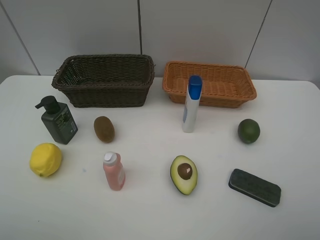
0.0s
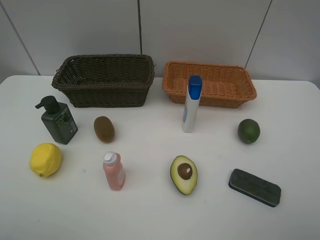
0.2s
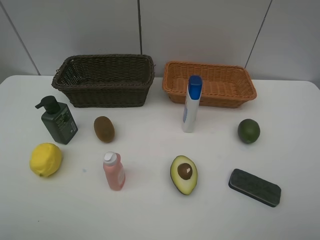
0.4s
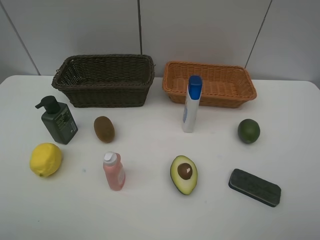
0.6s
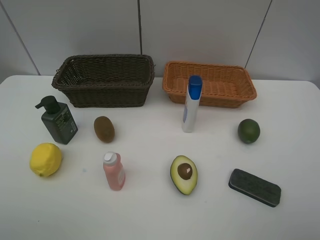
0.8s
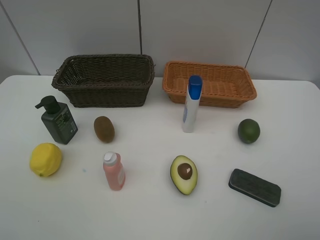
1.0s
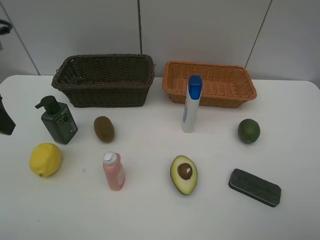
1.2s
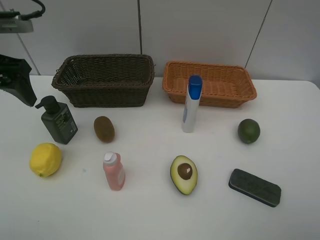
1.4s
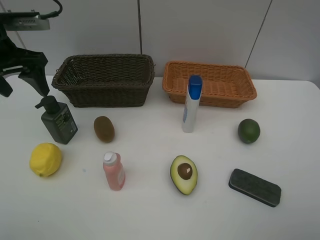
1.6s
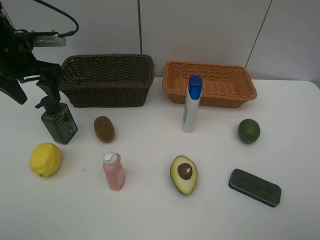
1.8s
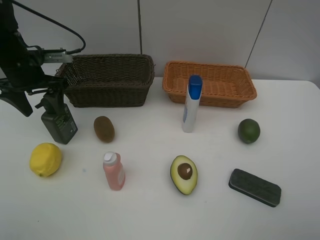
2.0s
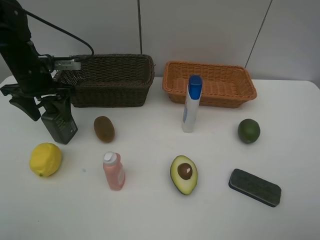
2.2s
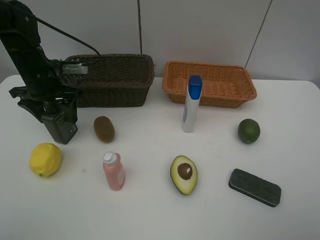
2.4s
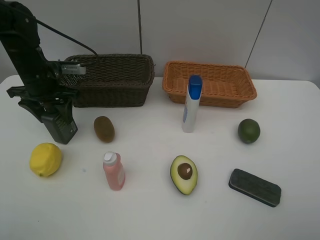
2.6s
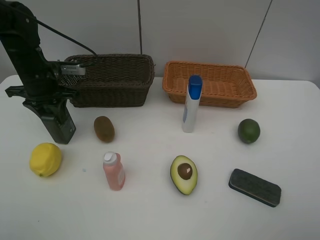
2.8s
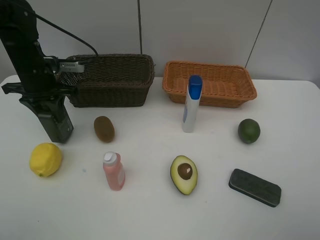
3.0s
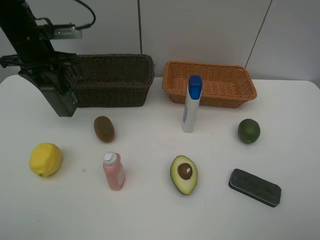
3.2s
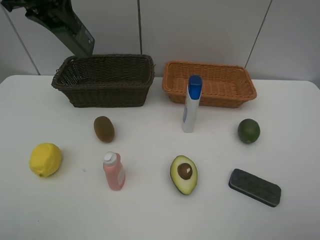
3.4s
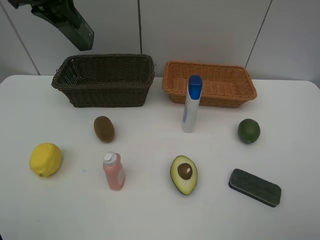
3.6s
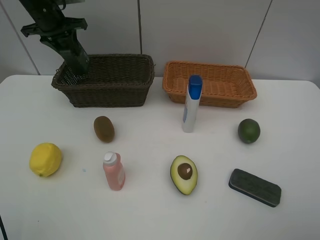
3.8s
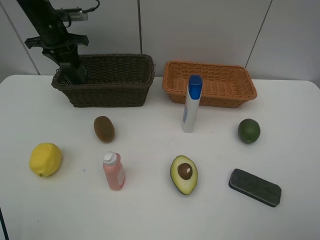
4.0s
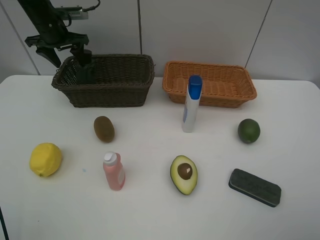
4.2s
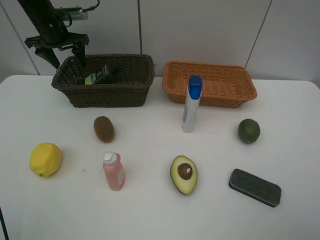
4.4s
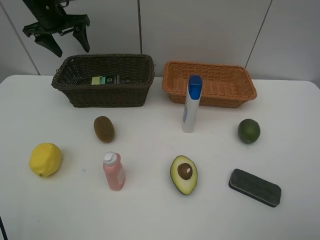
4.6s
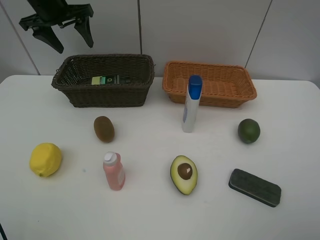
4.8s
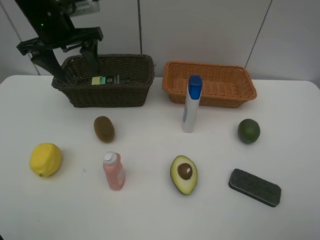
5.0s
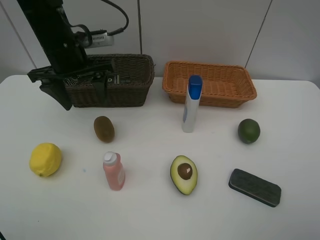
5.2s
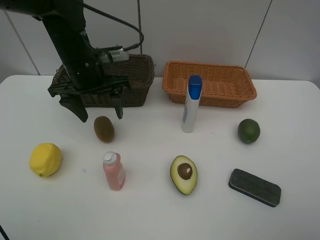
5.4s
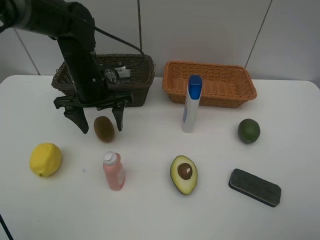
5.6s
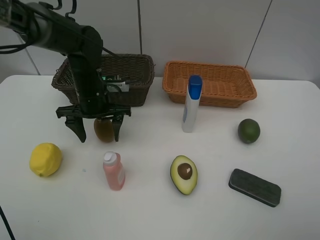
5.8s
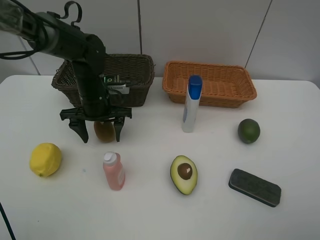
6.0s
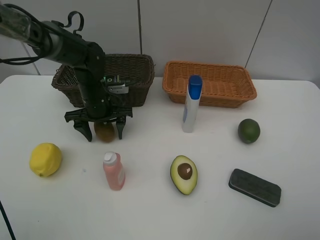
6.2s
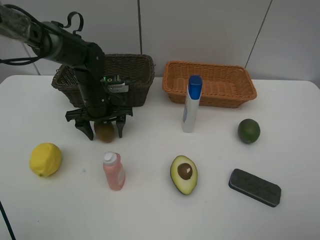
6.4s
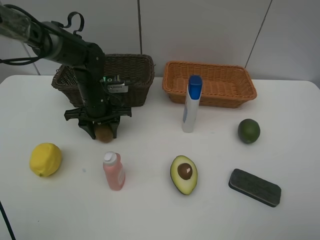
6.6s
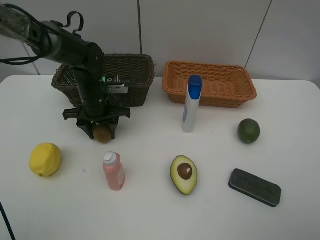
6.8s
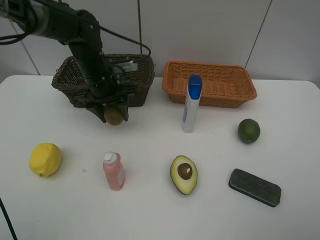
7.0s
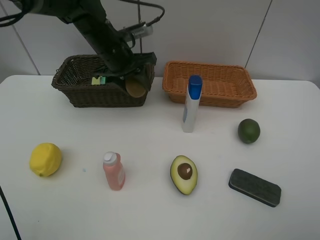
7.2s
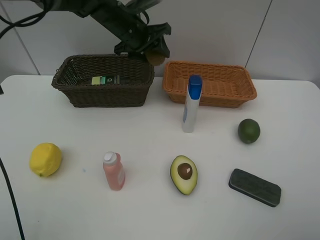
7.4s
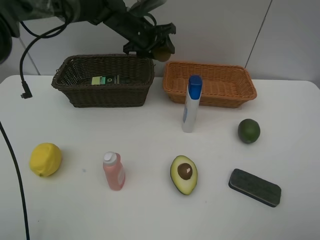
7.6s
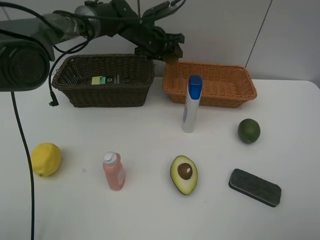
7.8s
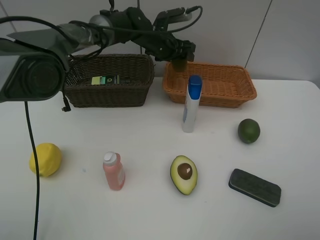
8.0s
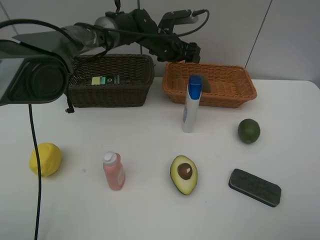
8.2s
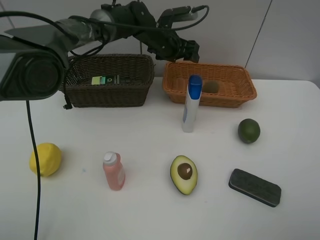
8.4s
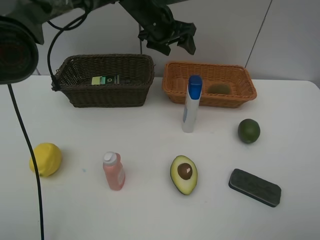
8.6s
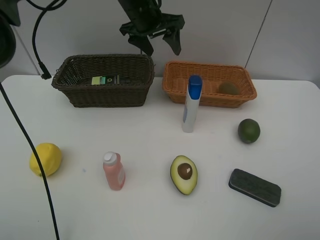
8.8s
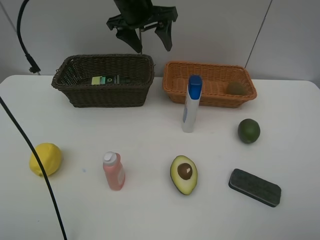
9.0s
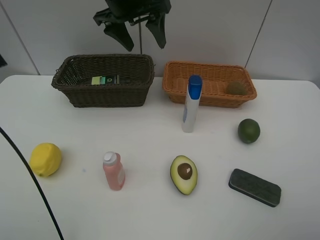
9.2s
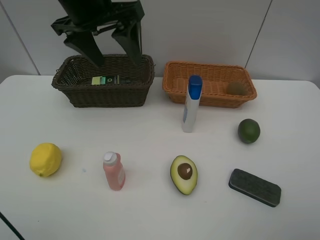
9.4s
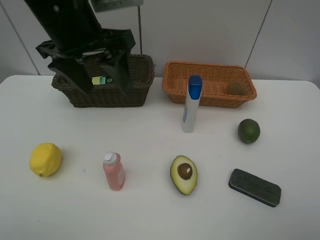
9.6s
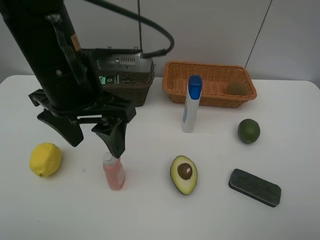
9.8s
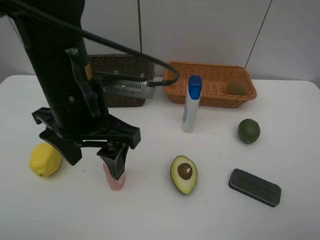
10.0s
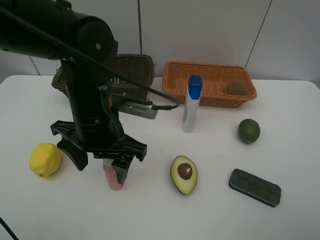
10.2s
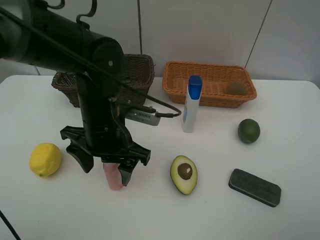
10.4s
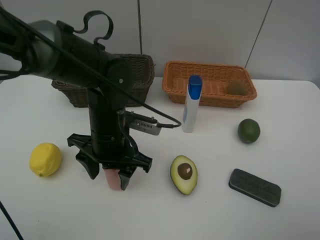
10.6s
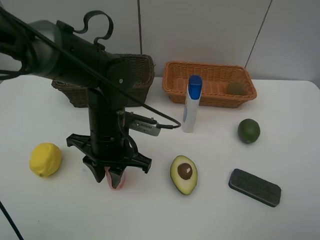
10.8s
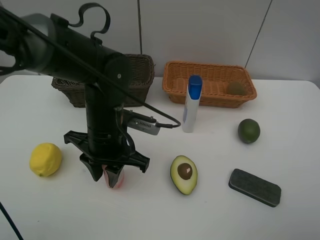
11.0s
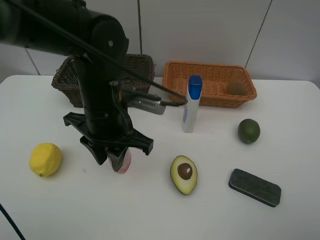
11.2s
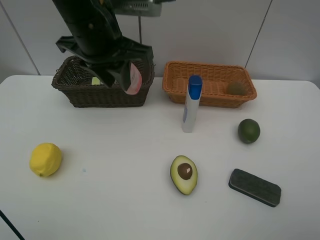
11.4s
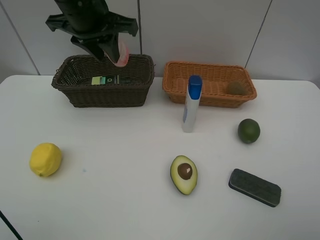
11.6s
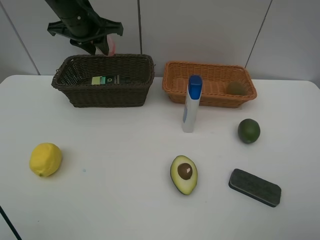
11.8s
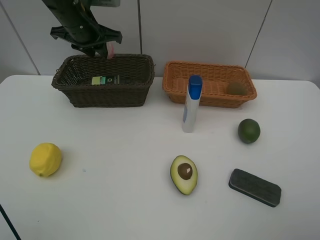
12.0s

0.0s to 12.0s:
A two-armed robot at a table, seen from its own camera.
Task of the whole recording: Place multiple objects separately in different baskets.
Step, 0.0s to 3.0s: Pick up the hard facial cleanser with left gripper.
Step, 3.2s to 4.4s: Place the hard facial cleanser in the dark basket with left gripper.
Step, 4.6s to 6.8s: Pick up kiwi with left gripper.
Step, 7.0s to 8.2s: Place the kiwi in the light basket with left gripper.
Step, 8.4s to 11.0s: Pick up the laundry detergent with left gripper.
0.0s to 1.6s: The left gripper shifts some 35 cm forward.
1.6s to 3.0s: The left gripper goes approximately 10 cm downward, and closes up.
3.0s to 4.4s: The left gripper moves forward, roughly 15 cm, goes upward and returns, roughly 15 cm each way, and opens.
4.4s to 6.0s: The left gripper goes roughly 25 cm backward, to the right and downward.
6.0s to 7.6s: The left gripper goes roughly 20 cm forward, upward and to the right, and closes its fingers.
7.6s to 9.0s: The left gripper heads upward and backward, covering some 10 cm, and opens its fingers.
9.0s to 10.4s: The left gripper travels backward and downward by roughly 25 cm.
10.4s to 12.0s: The left gripper moves forward, to the left and upward, approximately 25 cm, and closes.

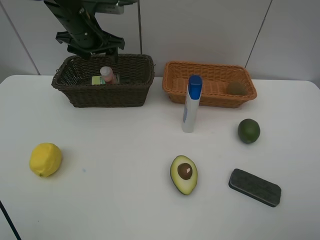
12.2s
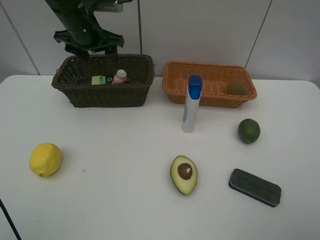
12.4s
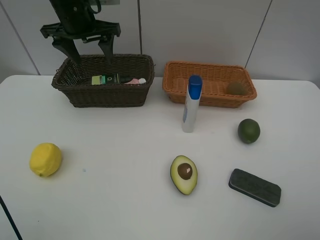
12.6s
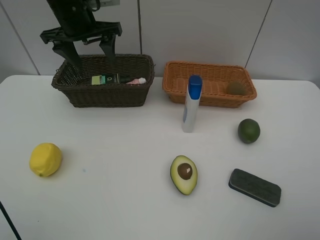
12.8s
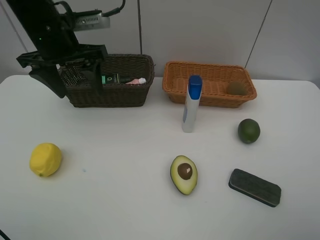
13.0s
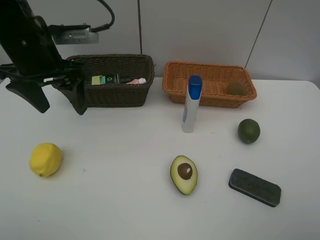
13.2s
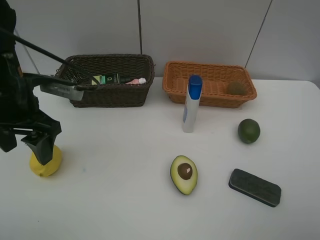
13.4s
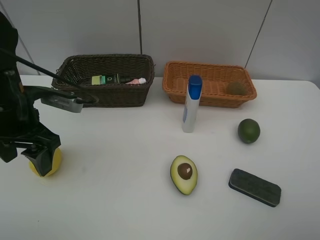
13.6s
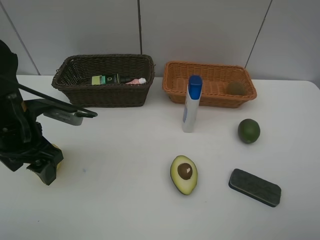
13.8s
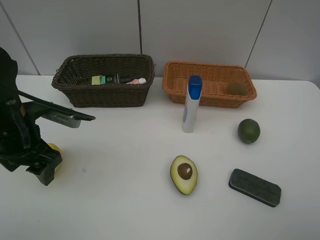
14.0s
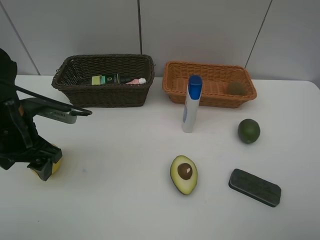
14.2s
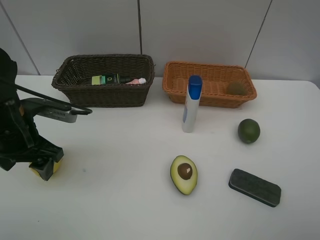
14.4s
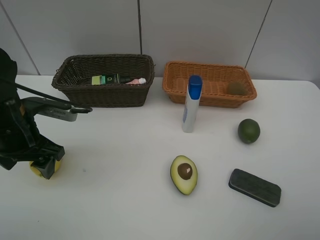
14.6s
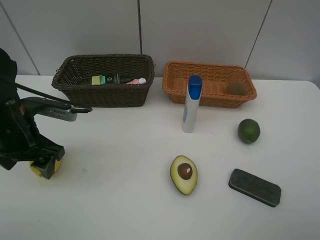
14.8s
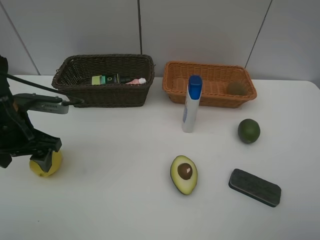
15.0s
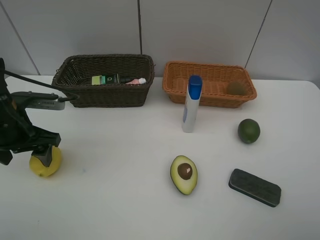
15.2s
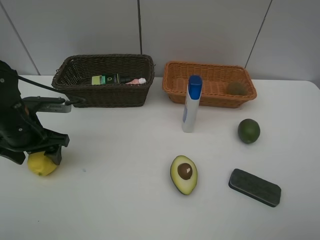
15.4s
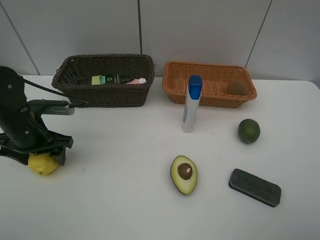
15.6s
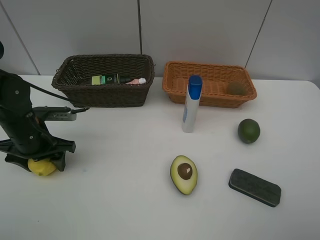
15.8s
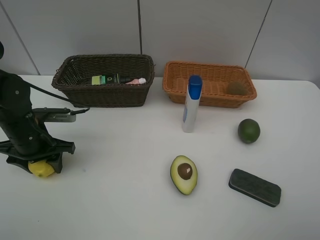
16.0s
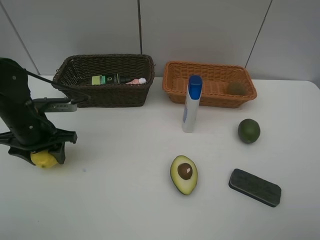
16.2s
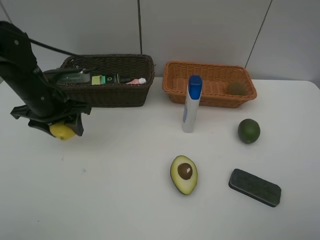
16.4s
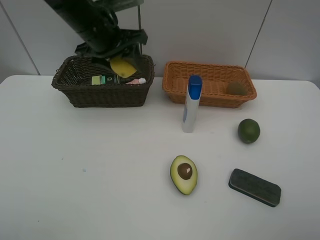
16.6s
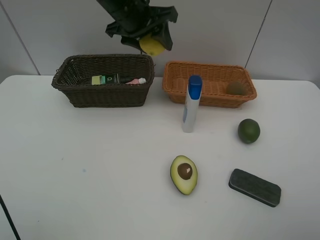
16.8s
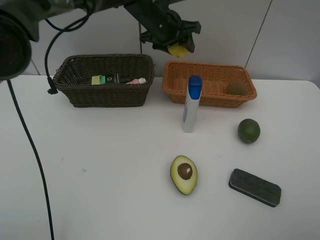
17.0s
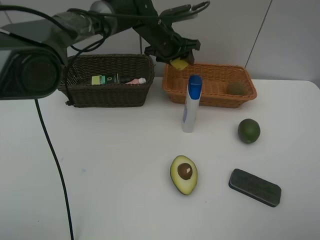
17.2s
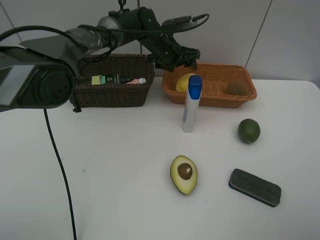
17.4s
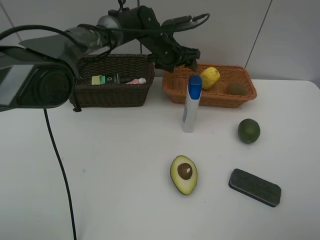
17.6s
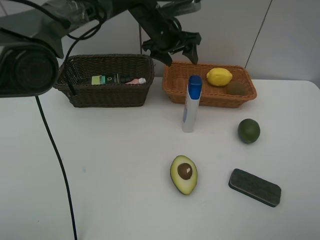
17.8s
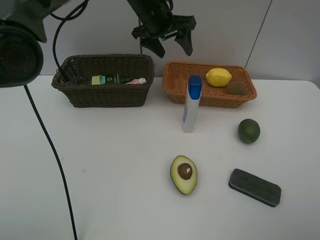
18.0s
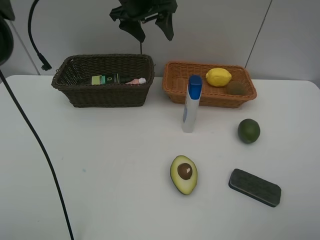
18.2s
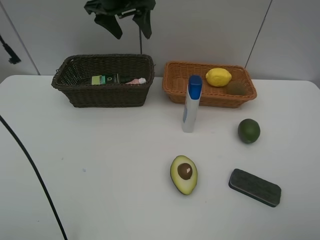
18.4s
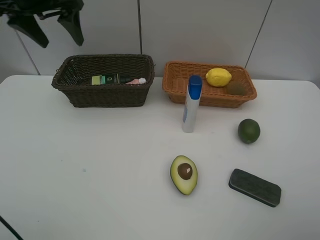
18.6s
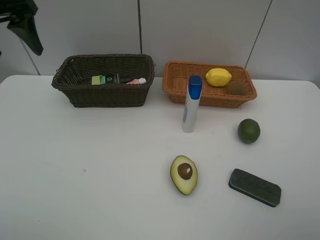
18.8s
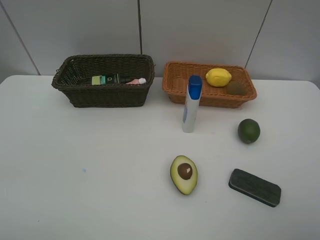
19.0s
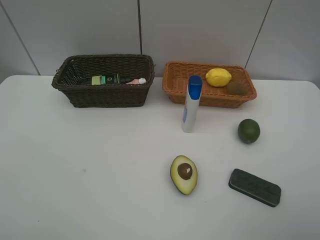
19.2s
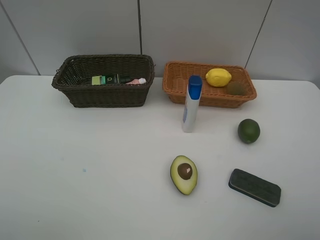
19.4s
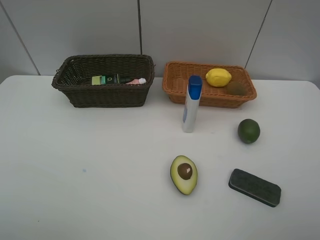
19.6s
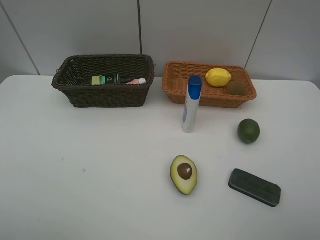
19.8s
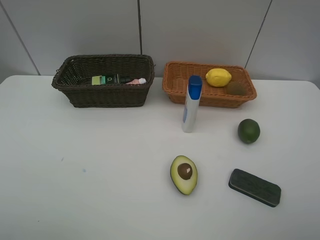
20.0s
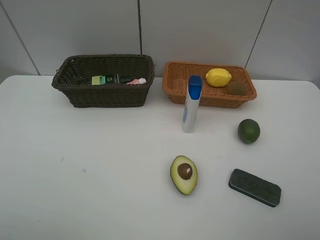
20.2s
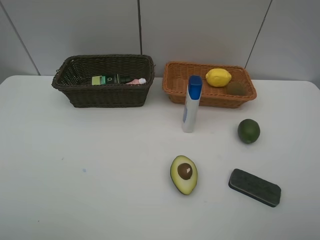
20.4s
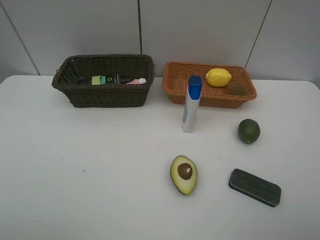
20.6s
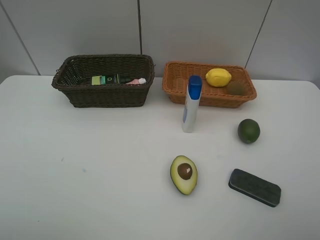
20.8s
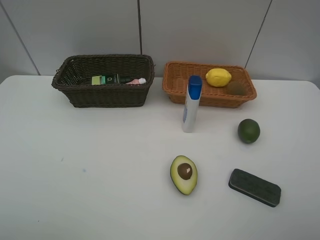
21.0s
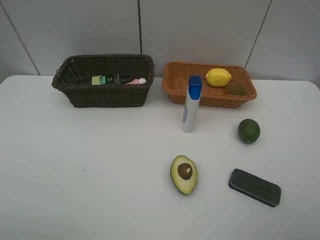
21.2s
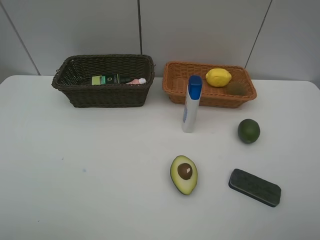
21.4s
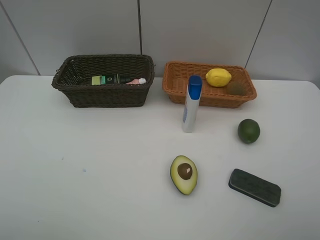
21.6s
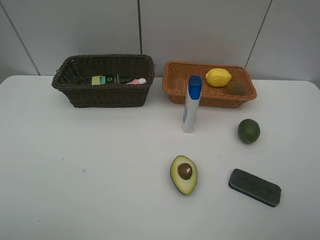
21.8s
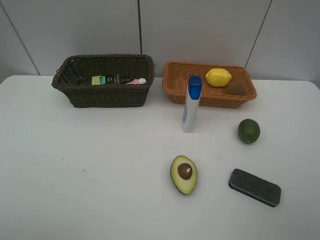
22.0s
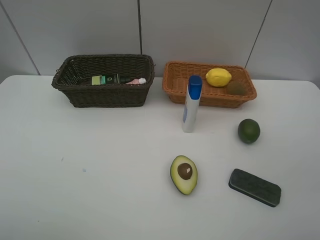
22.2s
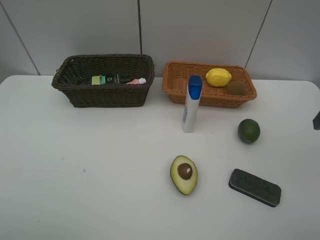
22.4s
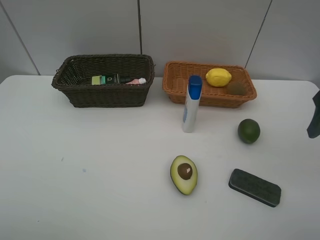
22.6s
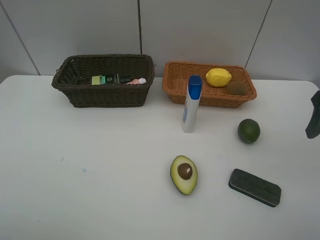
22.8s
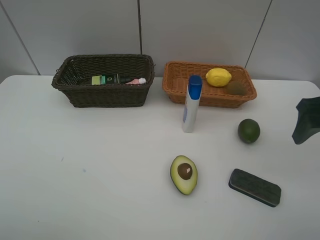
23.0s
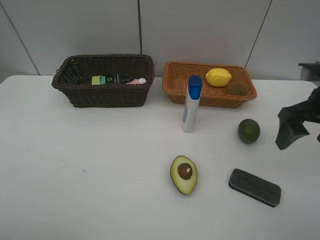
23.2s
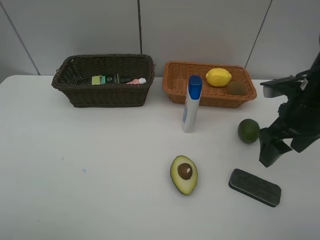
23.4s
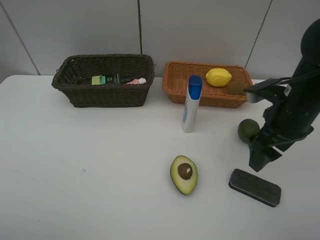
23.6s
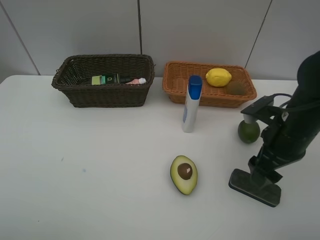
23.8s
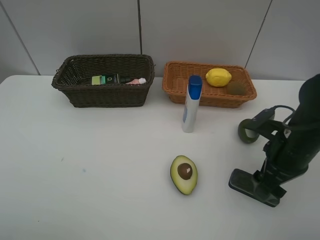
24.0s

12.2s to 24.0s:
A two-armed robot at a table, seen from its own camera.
Task of the whole recording: Place multiple objects separately in different baskets.
Step, 12.4s to 16.2s: Pick up the lemon with left gripper.
Step, 16.4s to 17.6s: Place the lemon in the light basket with left gripper.
12.2s to 13.6s: The left gripper shifts approximately 20 cm backward.
13.6s to 15.2s: The left gripper moves some 5 cm.
15.2s to 16.6s: The left gripper is displaced to the right, forward and upward by roughly 25 cm, and closes up.
16.6s to 18.2s: The left gripper goes some 10 cm forward, moves roughly 10 cm downward and comes back, and opens up.
18.2s to 19.6s: The left gripper travels backward and to the left by about 50 cm.
22.6s to 24.0s: The right gripper is displaced downward and to the left by roughly 15 cm.
